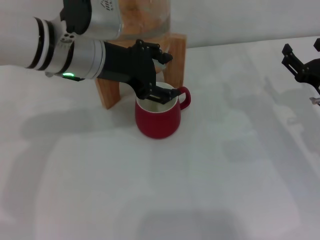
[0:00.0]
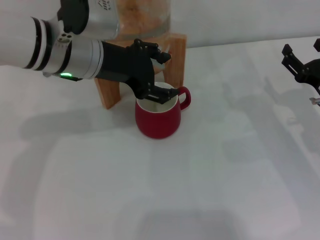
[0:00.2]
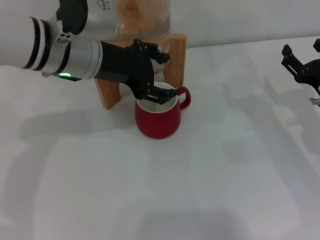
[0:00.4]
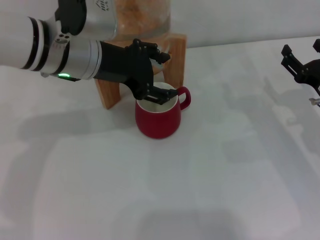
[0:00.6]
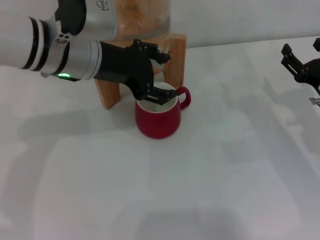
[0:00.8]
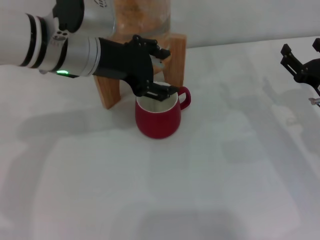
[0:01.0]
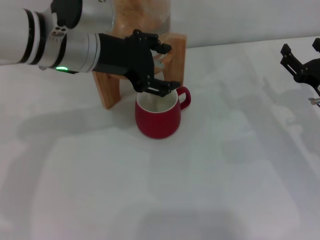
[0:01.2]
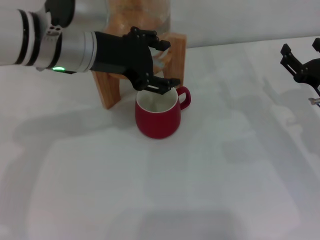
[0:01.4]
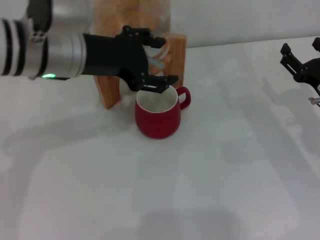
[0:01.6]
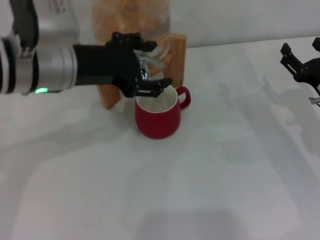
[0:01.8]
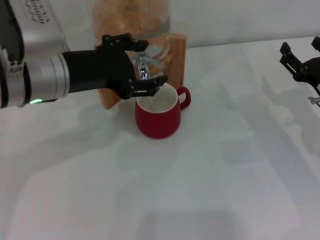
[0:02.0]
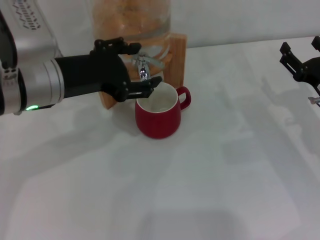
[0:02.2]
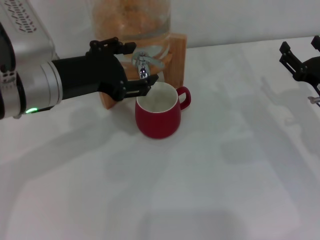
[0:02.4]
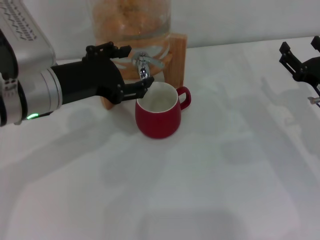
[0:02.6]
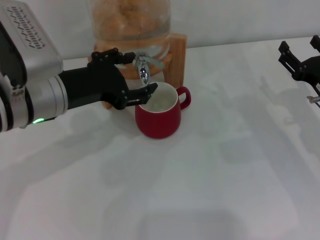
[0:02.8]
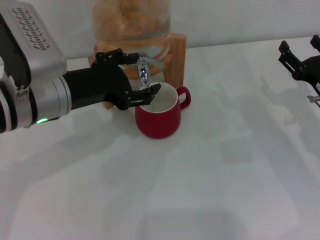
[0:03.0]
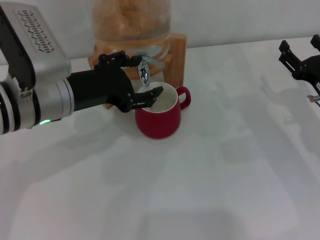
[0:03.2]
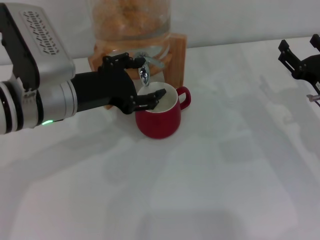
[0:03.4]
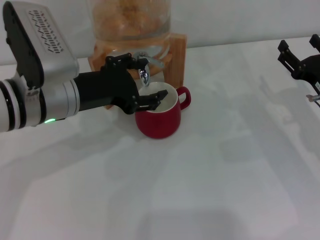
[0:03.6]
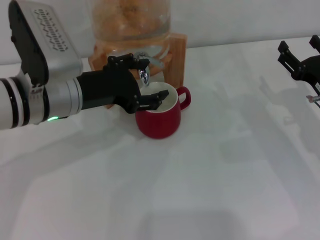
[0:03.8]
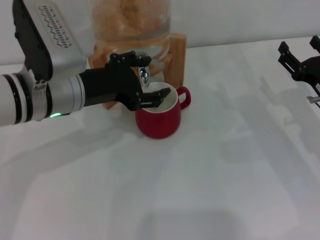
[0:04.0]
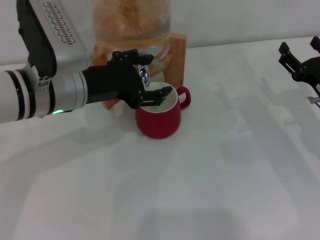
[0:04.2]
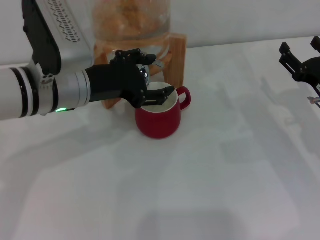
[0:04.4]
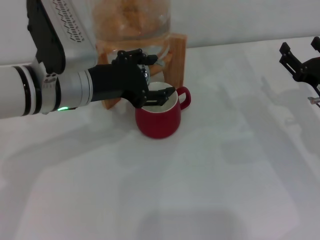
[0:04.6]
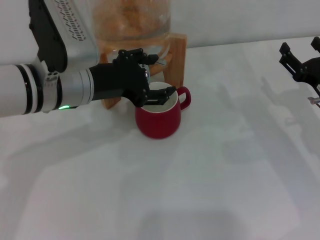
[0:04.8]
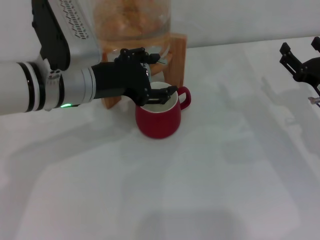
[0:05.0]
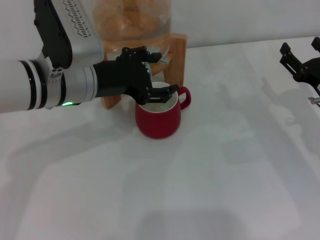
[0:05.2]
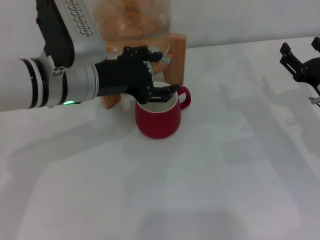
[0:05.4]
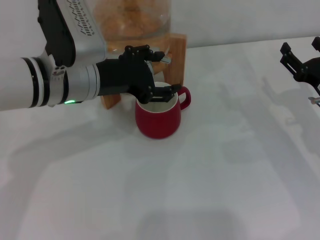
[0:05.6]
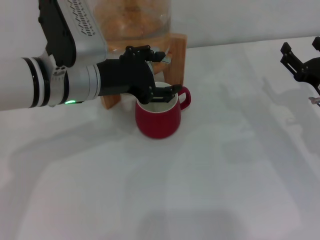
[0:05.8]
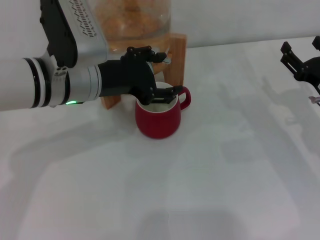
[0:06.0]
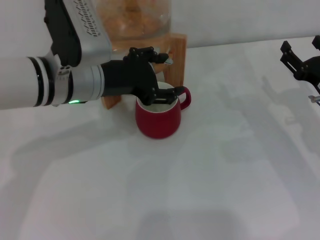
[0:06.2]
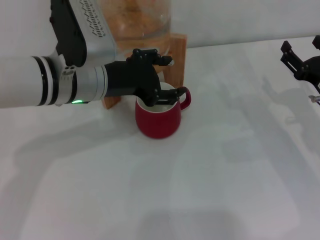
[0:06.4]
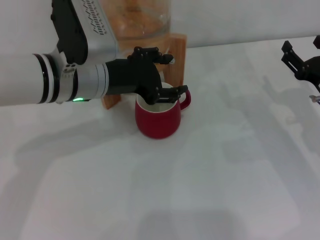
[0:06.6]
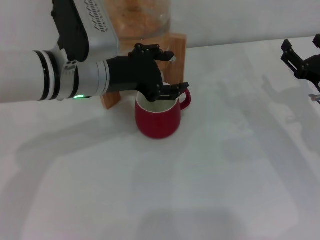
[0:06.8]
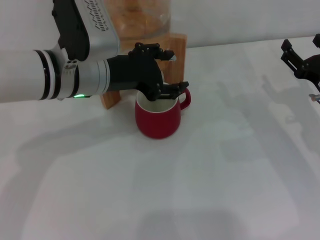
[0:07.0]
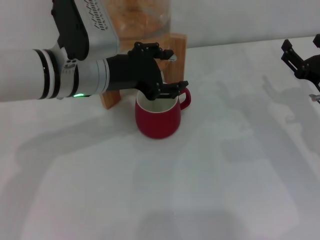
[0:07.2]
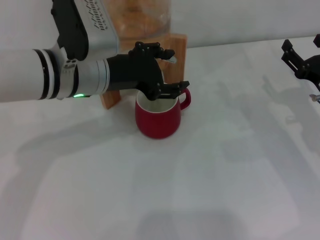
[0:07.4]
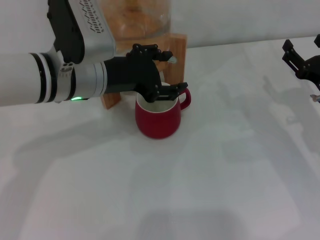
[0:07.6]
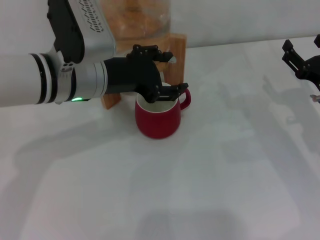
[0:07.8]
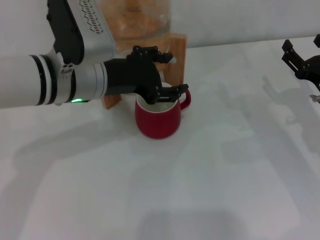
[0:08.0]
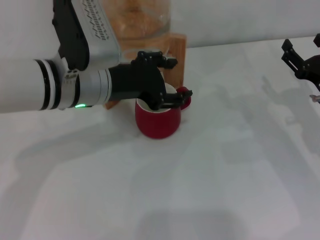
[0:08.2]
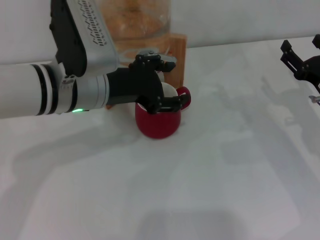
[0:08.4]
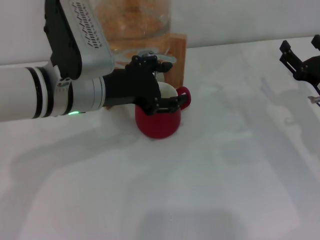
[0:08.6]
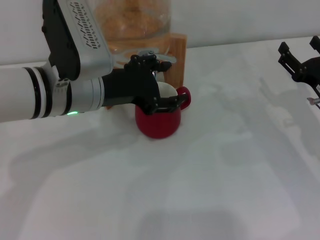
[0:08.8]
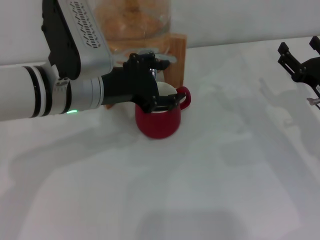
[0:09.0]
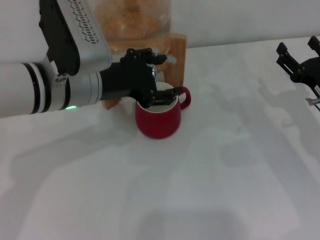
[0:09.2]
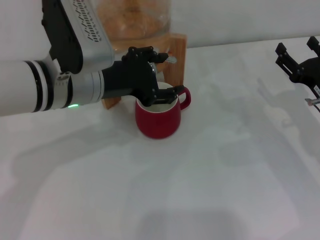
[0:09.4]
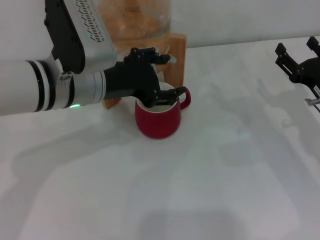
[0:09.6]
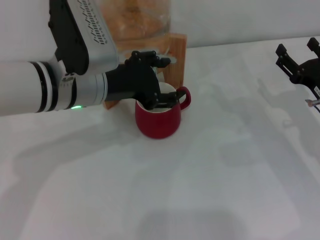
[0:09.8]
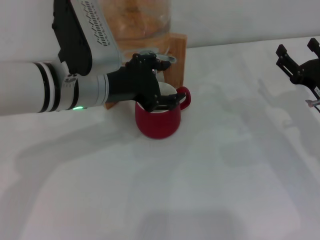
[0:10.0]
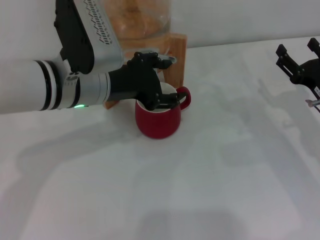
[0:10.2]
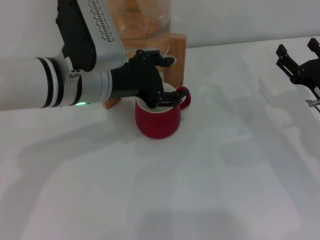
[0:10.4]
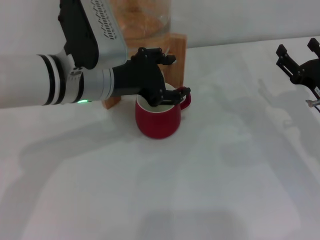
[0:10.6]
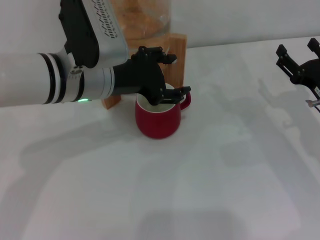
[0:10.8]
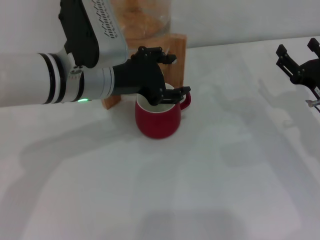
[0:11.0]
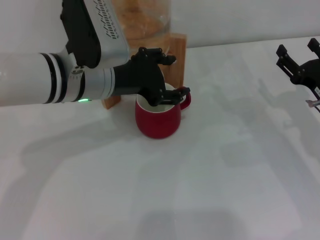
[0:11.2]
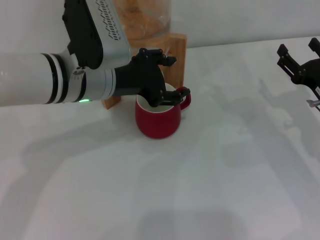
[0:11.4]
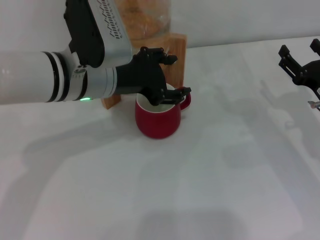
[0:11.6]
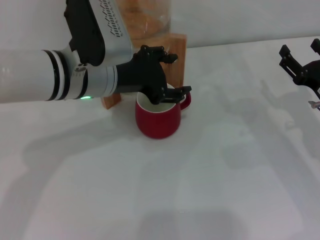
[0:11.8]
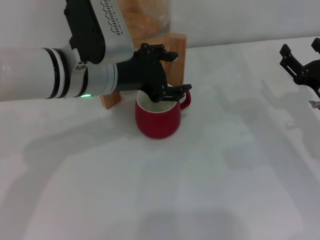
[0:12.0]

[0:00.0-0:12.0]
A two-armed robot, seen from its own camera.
Task of the whole recording: the right gripper pick up the red cup and place it horizontally under the faucet, the left gripper turn on the faucet to fill the cup, and then turn off the faucet.
Step, 0:00.0 to 0:04.2: Open the dispenser valve and fill the cup with water with the left gripper.
0:00.0 to 0:01.6: The grippers make only small movements.
0:01.6 to 0:03.0: The left gripper is displaced downward by approximately 5 cm.
0:03.0 to 0:06.0: The grippers make only small movements.
0:06.0 to 0:07.6: Both grippers stay about where they are.
0:07.6 to 0:10.4: There are only small adjustments of the grippers.
0:10.4 to 0:12.0: Both grippers stay about where they are.

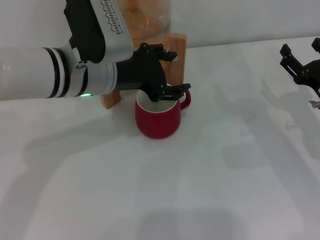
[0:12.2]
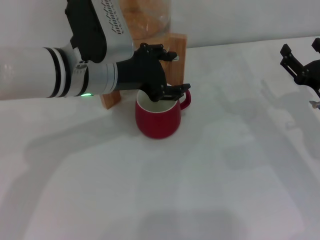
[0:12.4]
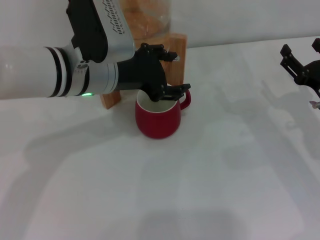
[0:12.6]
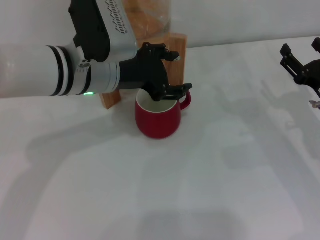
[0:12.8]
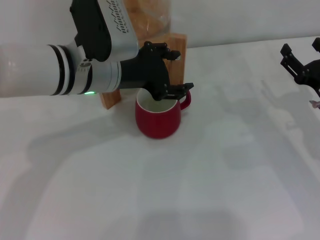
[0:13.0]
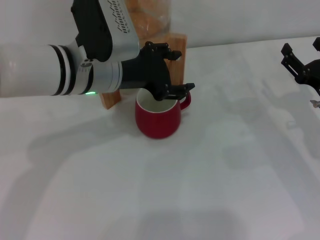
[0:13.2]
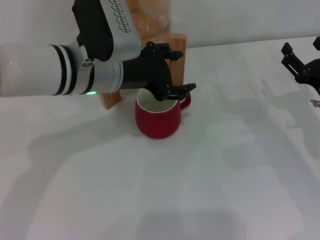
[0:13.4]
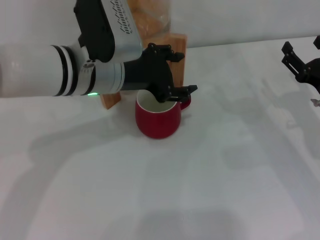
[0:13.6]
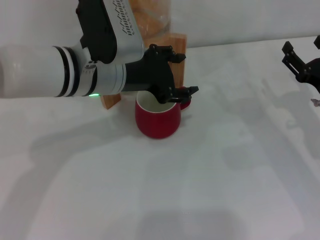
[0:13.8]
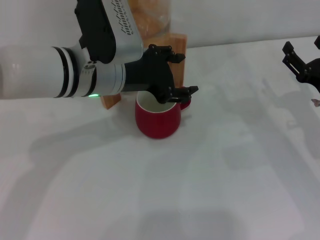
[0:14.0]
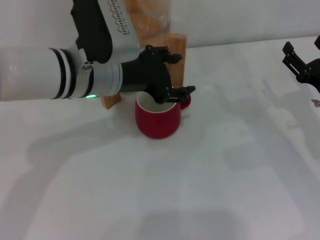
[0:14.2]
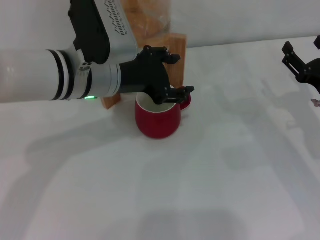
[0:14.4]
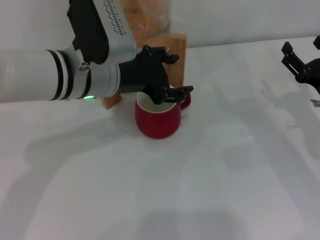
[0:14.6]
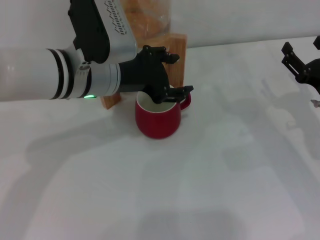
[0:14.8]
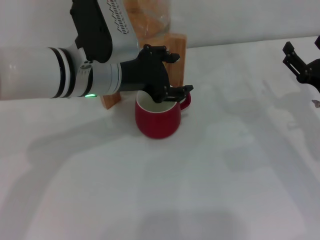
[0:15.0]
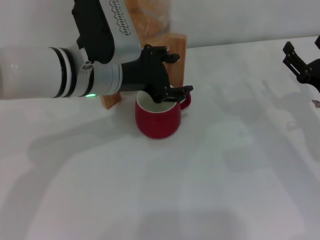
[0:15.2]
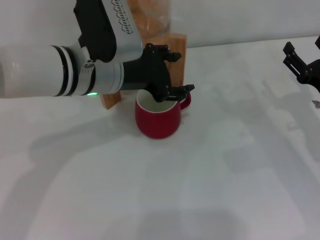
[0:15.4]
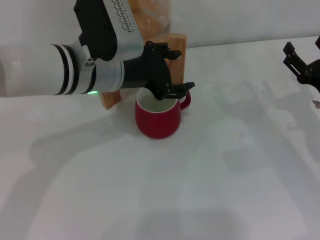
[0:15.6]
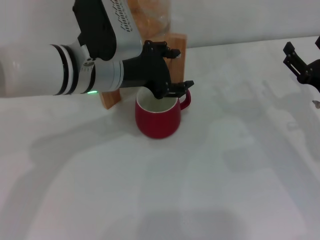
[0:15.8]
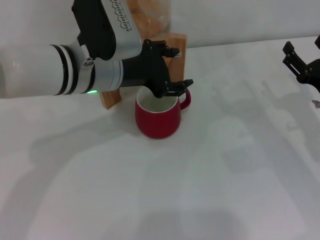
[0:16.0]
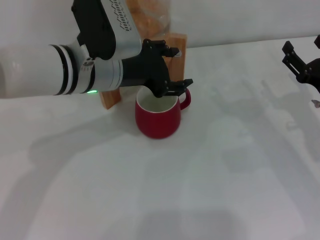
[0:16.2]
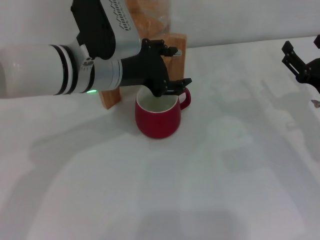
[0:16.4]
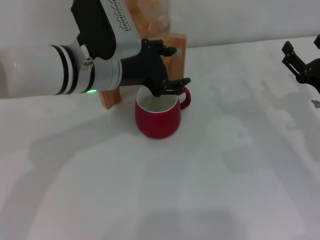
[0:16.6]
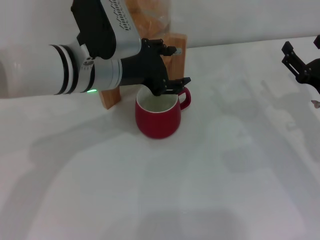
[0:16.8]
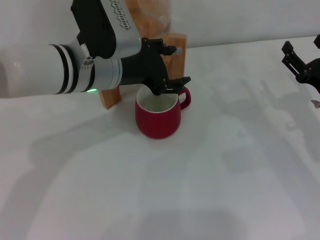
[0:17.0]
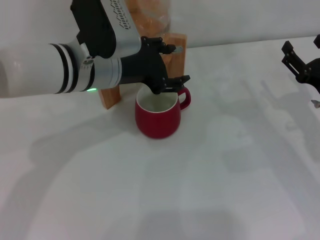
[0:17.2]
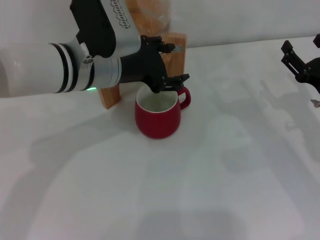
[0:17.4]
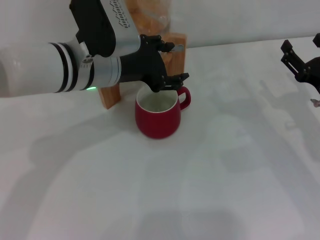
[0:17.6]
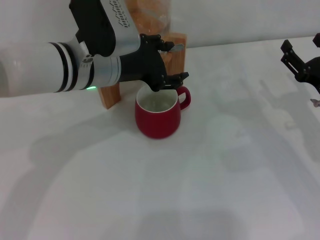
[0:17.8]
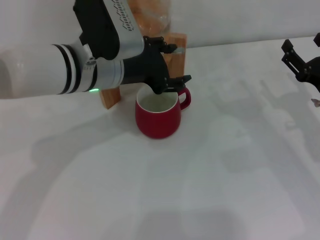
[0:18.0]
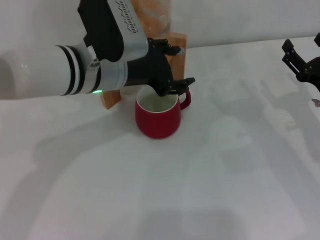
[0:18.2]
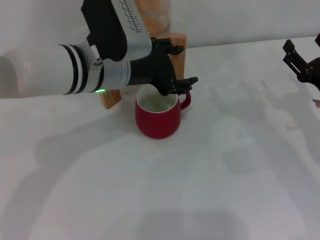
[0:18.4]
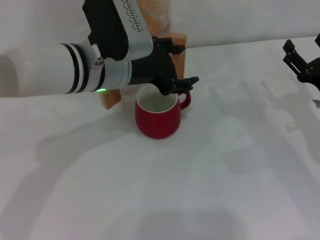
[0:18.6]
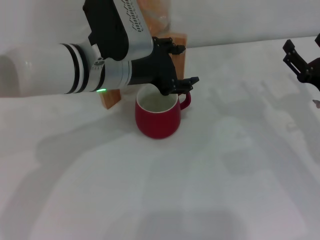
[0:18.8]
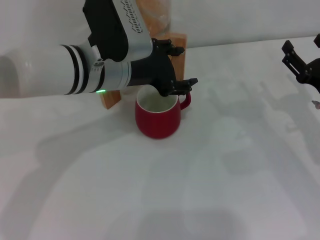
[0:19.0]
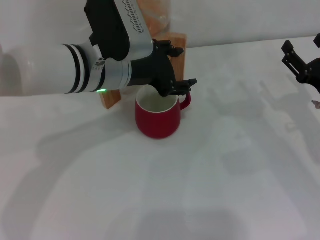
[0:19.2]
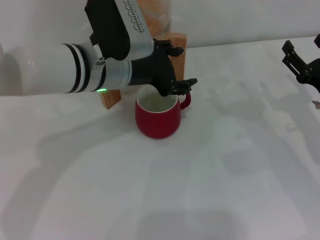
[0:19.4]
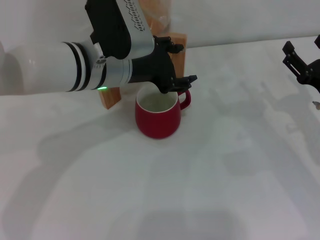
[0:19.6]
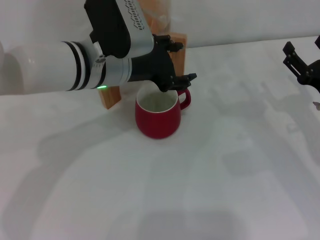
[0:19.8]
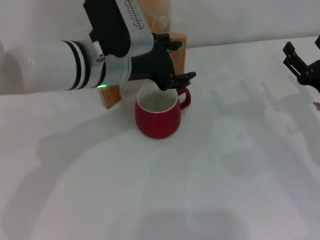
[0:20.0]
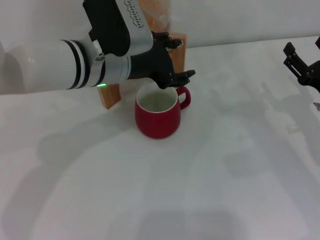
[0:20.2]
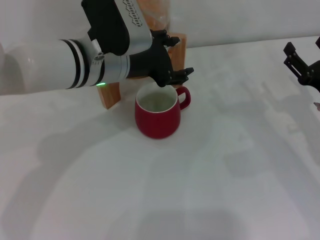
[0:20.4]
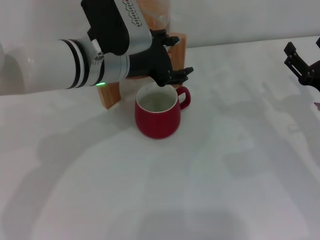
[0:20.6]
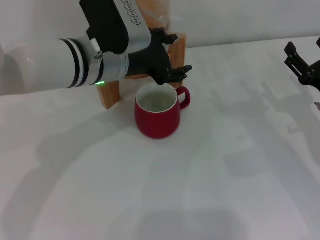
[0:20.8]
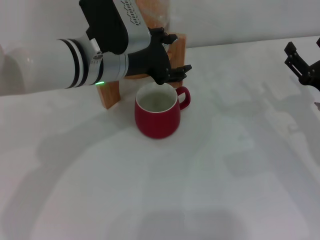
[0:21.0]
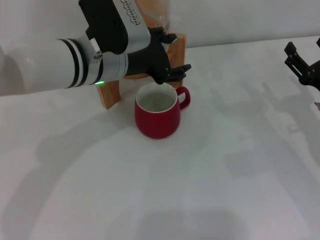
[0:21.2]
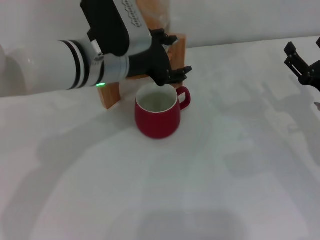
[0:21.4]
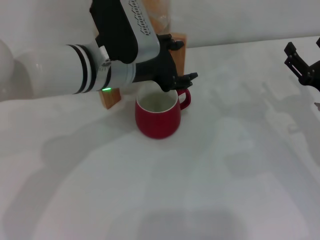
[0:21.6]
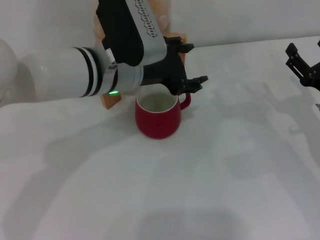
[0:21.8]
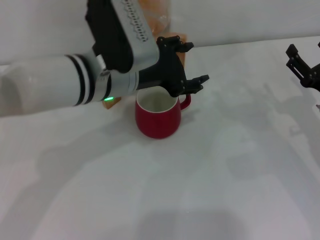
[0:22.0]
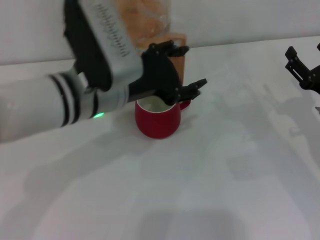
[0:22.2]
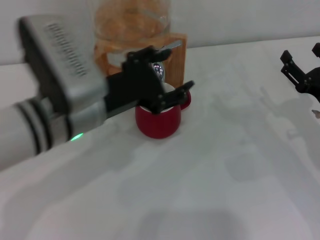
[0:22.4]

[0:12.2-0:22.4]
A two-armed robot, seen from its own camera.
Task of the whole recording: the right gripper pick up the red cup and place it horizontally under the faucet, the left gripper turn on the faucet to fill the cup, and then turn off the faucet.
Step, 0:12.2 to 0:22.2: Close the dispenser valve with the left gripper.
0:12.2 to 0:18.0: The two grippers keep their place.
0:18.0 to 0:19.4: Both grippers stay about where they are.
0:19.4 to 0:21.0: The grippers stay close to where they were, moving slightly.
0:21.0 to 0:22.4: The left gripper heads backward, covering roughly 10 cm.
